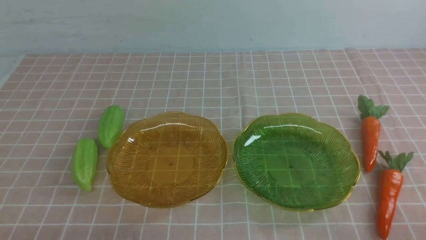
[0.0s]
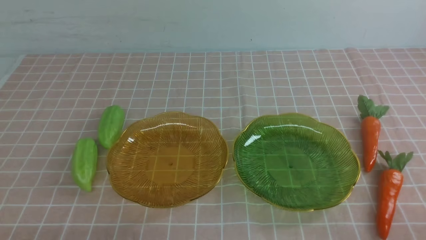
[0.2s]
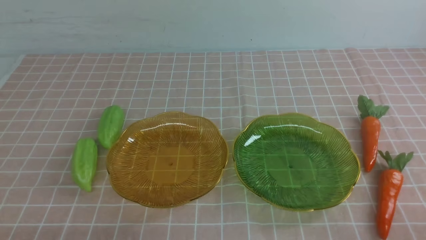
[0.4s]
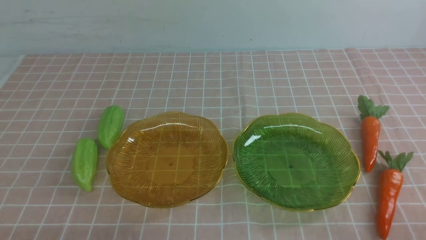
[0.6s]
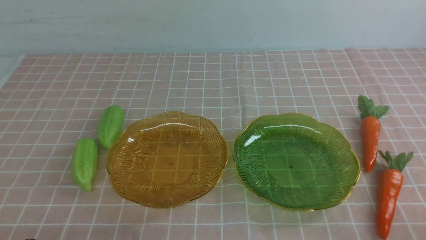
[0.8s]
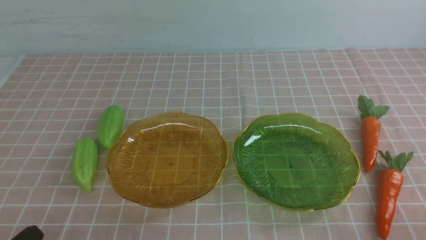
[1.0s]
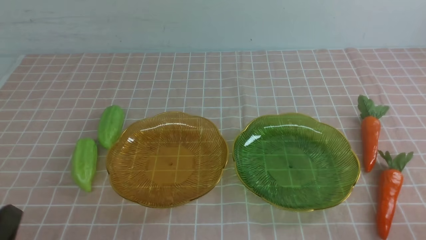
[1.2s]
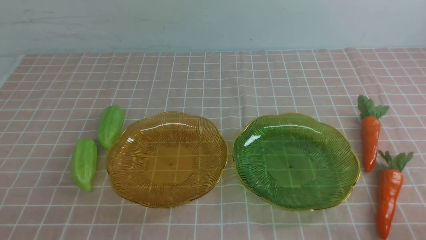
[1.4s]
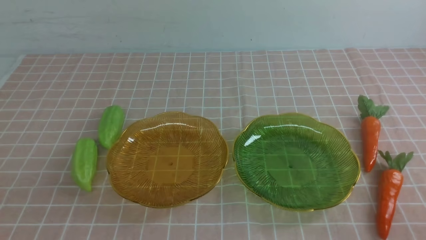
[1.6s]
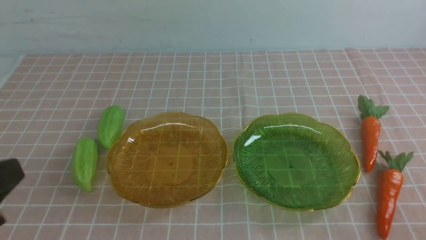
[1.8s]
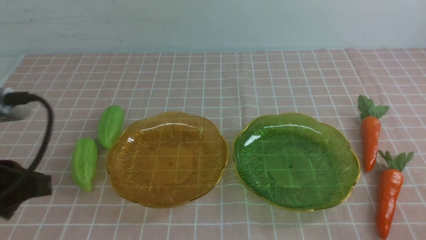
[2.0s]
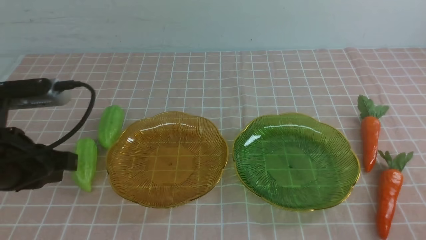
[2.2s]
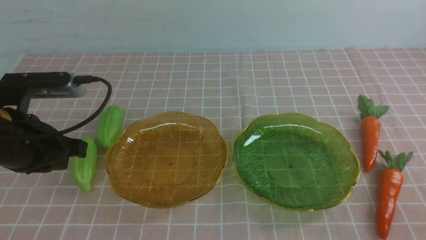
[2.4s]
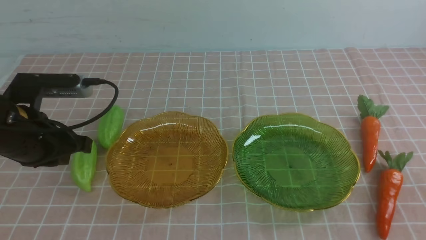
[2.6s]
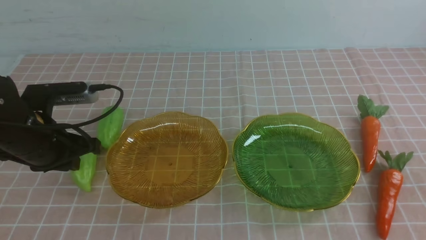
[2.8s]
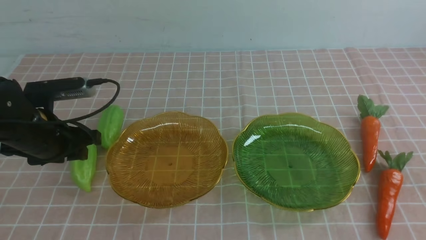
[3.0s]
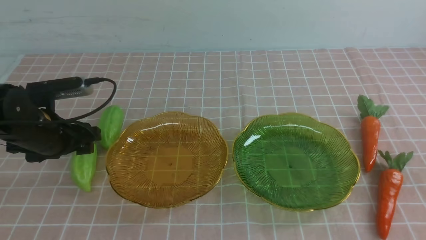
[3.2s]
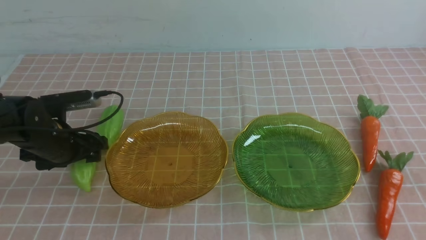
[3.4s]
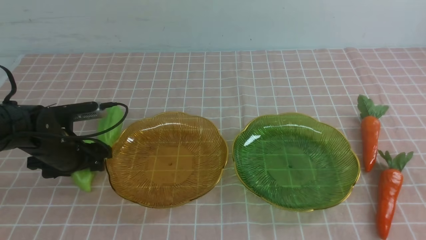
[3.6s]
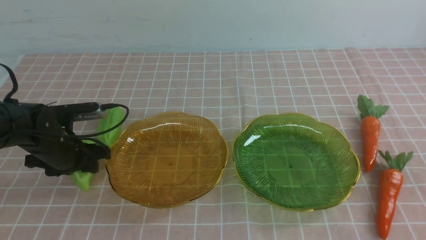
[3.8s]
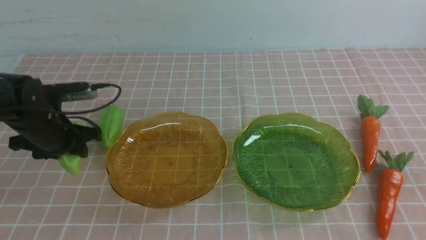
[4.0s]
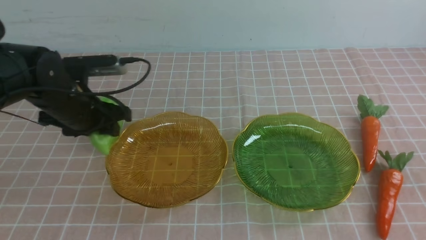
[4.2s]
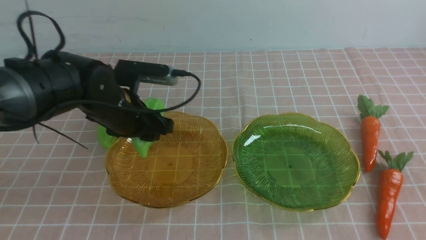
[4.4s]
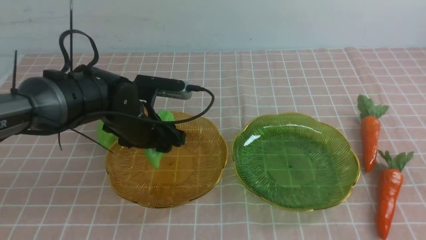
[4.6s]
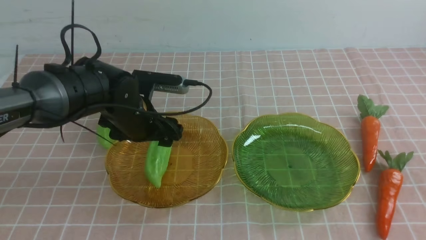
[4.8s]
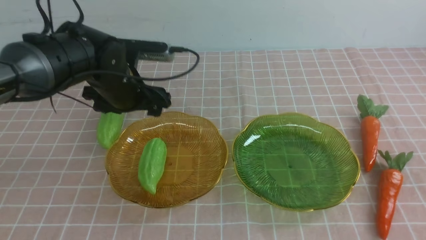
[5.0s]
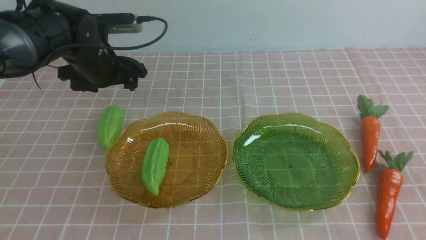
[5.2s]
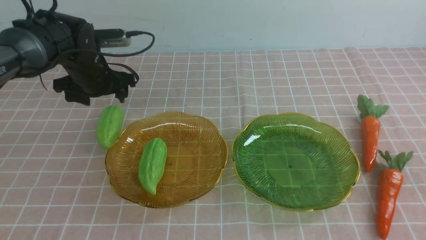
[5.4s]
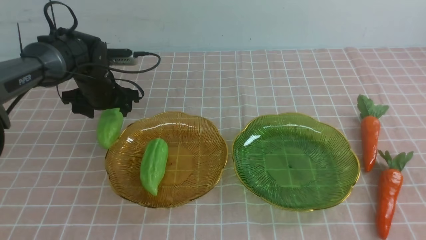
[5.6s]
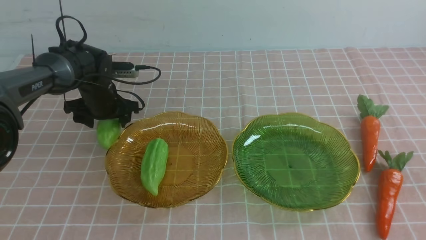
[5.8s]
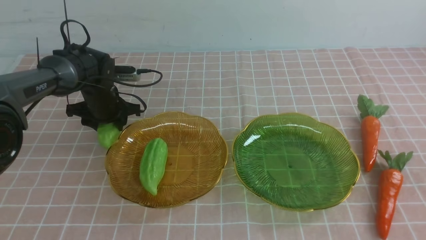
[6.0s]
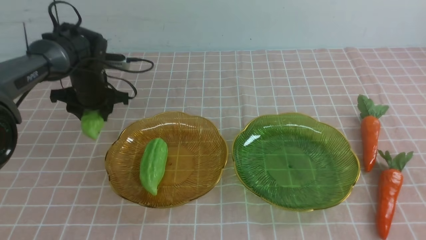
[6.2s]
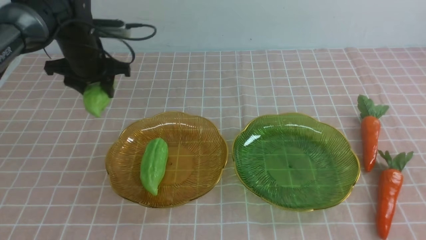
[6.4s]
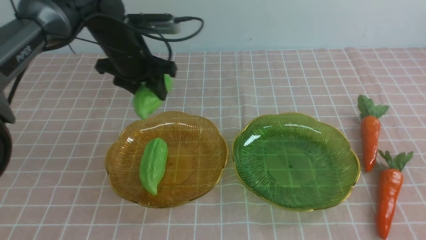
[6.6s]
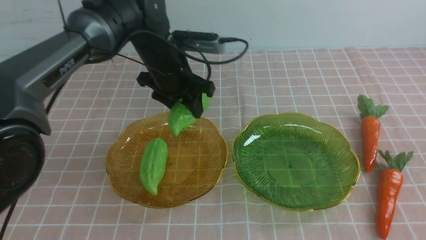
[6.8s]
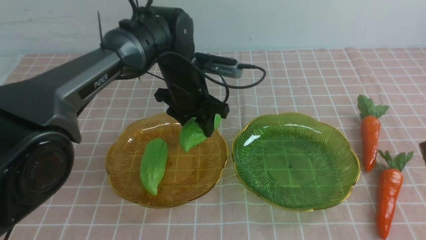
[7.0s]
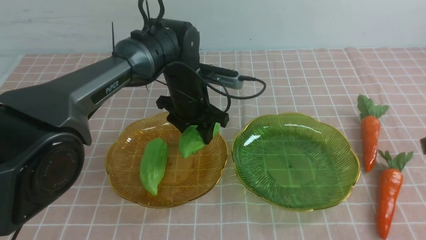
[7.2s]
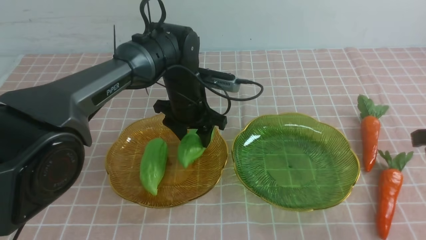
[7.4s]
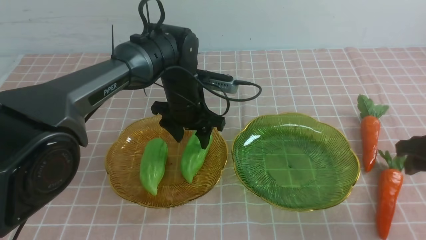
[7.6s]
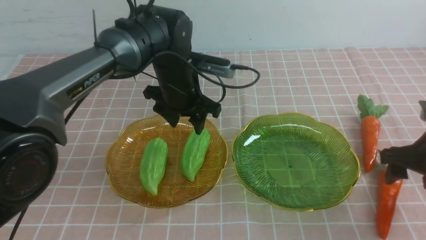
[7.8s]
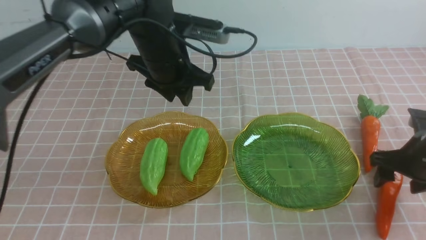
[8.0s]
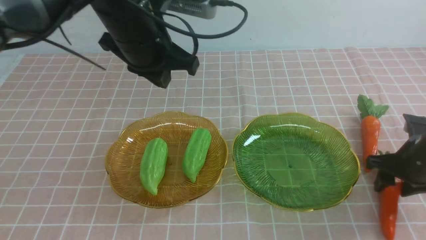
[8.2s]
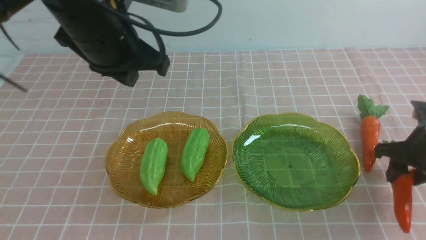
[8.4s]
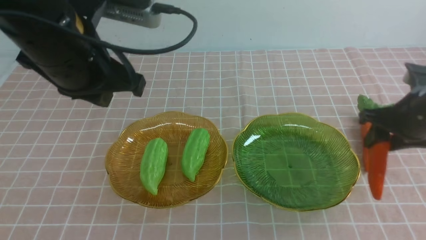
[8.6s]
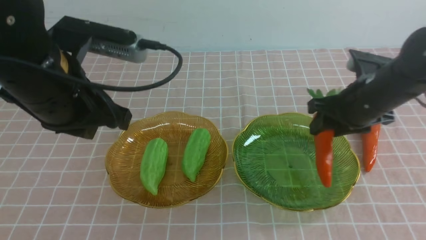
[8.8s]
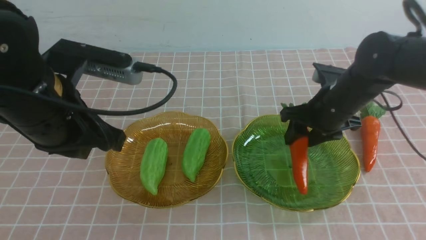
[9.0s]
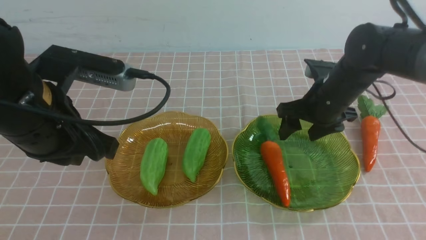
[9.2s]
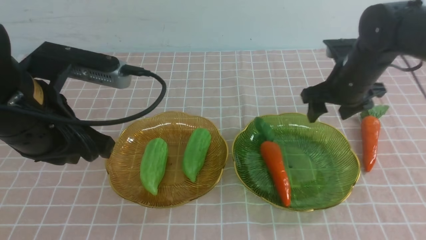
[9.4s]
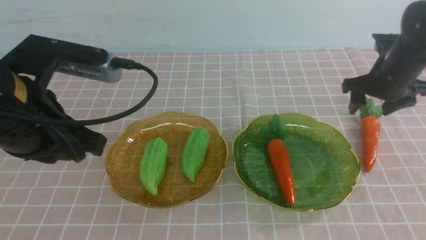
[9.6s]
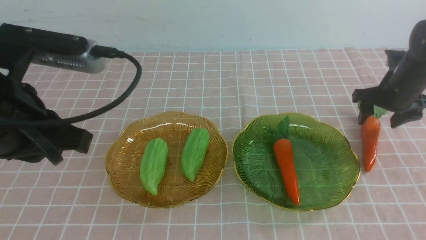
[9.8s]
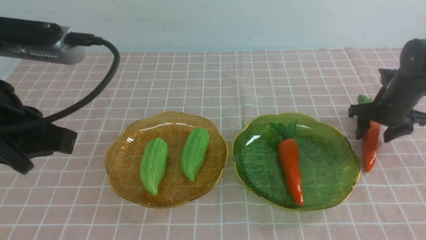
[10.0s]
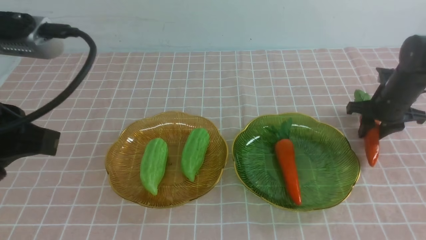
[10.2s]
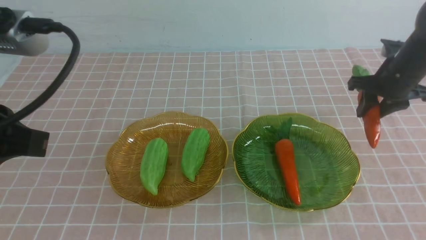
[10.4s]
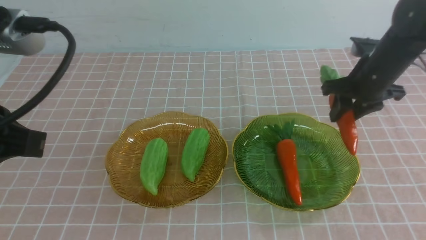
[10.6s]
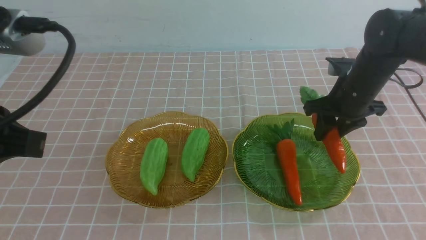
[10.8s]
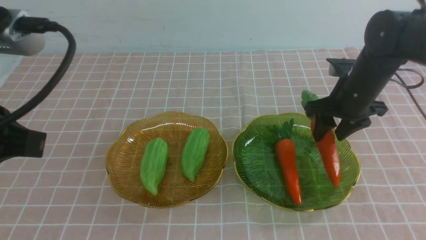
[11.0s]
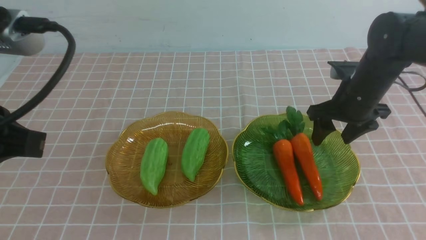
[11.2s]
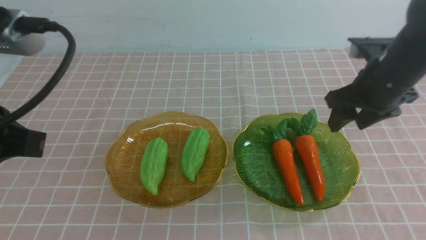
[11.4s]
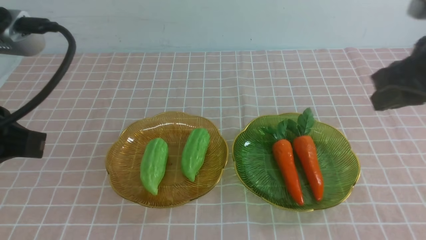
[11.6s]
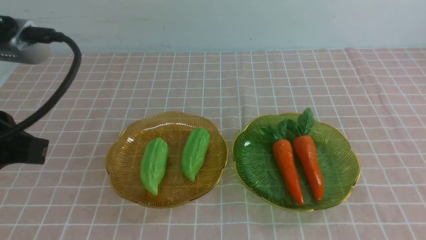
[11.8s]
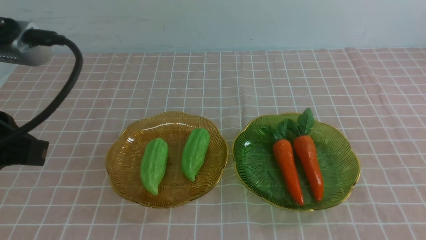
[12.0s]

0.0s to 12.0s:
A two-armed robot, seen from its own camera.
Step, 0.0s to 4.6s: use the left arm to grab a chayote and put it into the left plate.
Step, 5.0s to 7.4s: use the left arm to grab a chayote and put it into the left plate.
Step, 7.6s to 9.0s: use the right arm to grab a carrot and put it into the right plate.
Step, 9.2s to 11.2s: use the right arm to grab a carrot and put it into the right plate.
1.6s to 3.0s: The left gripper heads forward, covering about 25 cm, and opens up.
3.0s to 4.4s: The left gripper goes roughly 10 cm to the right.
4.4s to 6.0s: The left gripper shifts approximately 15 cm forward, to the left and downward.
6.0s to 7.6s: The right gripper goes about 20 cm forward and downward, and opens, while the left gripper shifts about 15 cm to the right.
7.6s to 9.0s: The left gripper is displaced backward, upward and to the left by roughly 25 cm, and closes its fingers. The right gripper is displaced to the left and forward by roughly 15 cm.
9.0s to 10.4s: The left gripper travels backward and upward by about 10 cm. Meanwhile the right gripper moves to the right and forward, roughly 15 cm.
10.4s to 12.0s: The right gripper goes roughly 35 cm backward and upward, and closes its fingers.

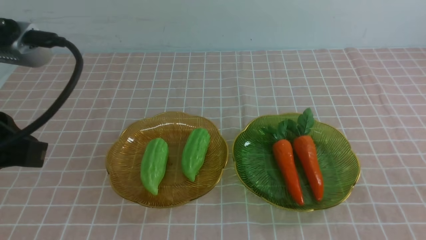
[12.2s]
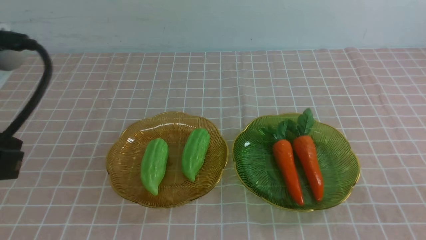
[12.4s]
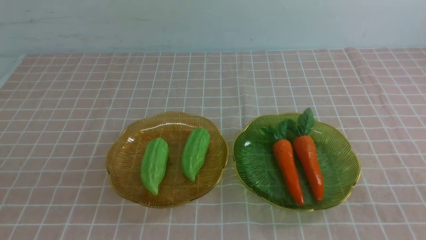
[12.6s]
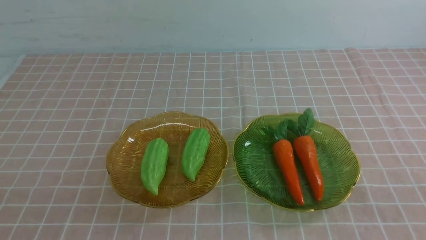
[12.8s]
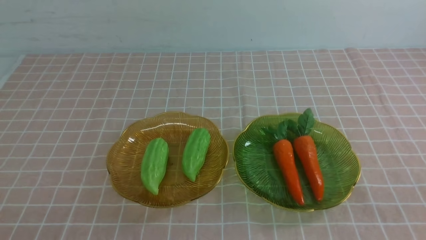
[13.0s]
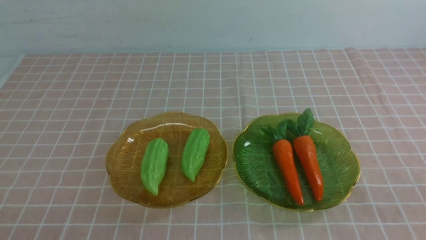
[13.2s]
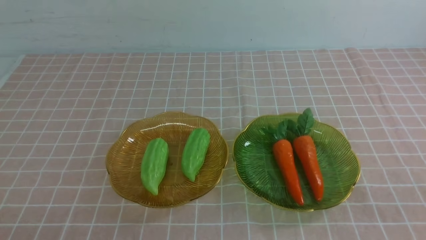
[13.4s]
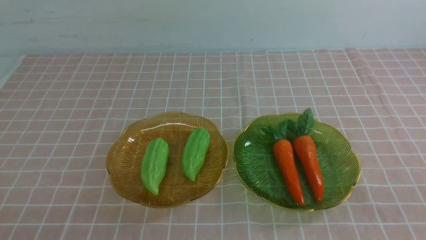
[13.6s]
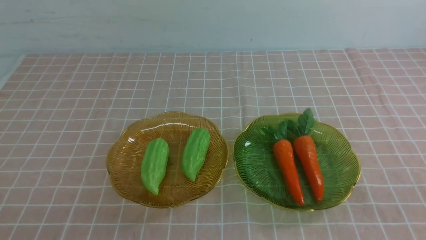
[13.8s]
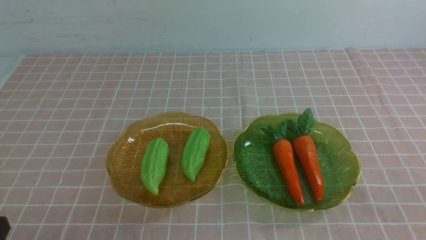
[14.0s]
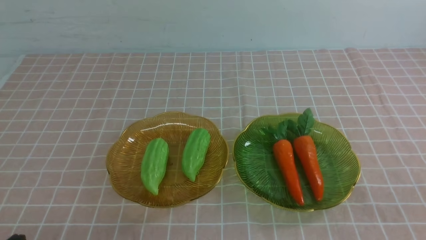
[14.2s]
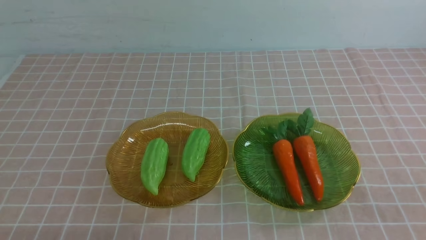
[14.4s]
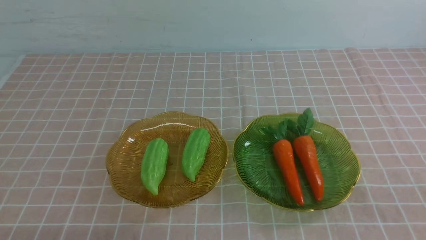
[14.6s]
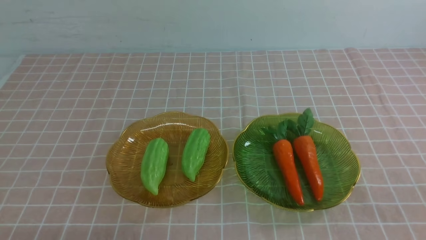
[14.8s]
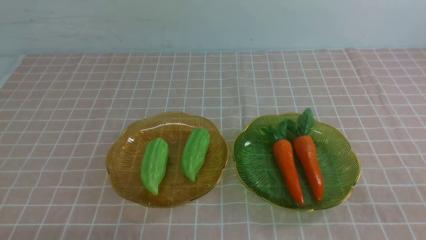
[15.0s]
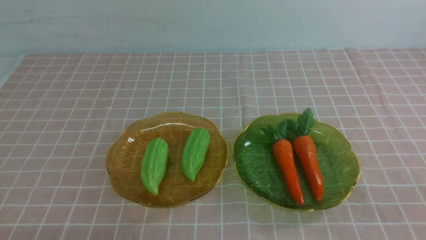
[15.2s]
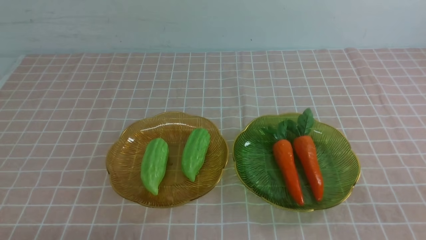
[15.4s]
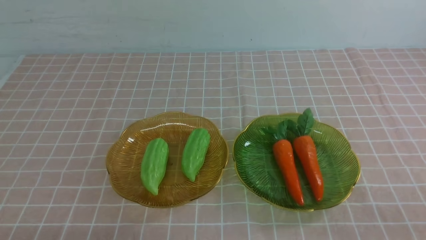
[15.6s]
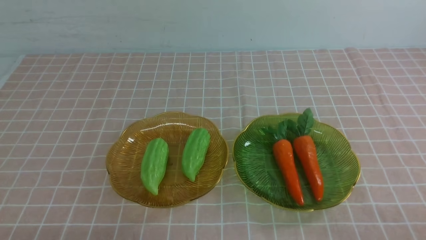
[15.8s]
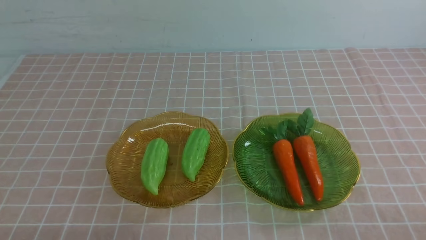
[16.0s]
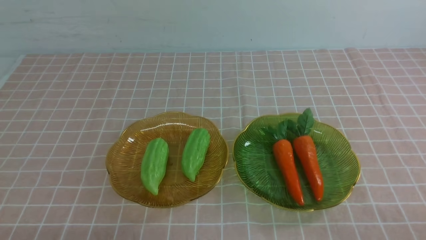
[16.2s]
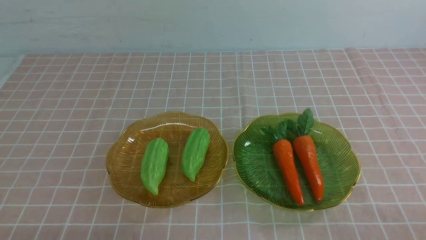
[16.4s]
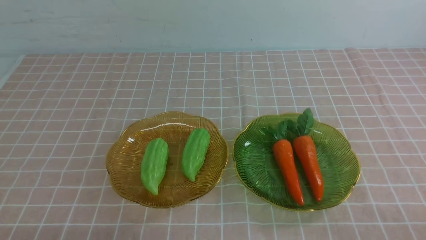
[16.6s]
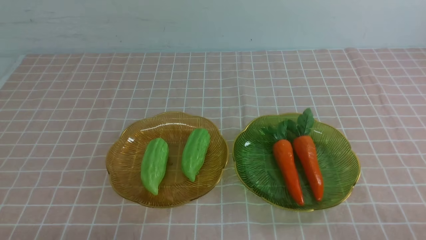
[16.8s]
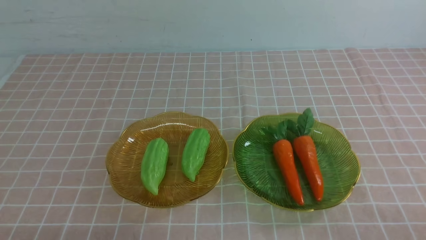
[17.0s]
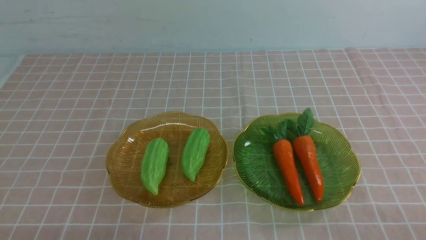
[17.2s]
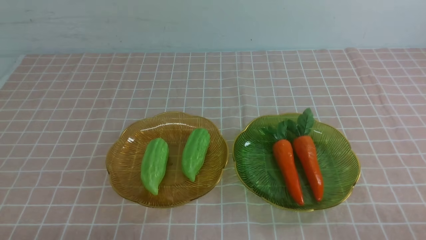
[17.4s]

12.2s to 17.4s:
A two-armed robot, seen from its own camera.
12.2s to 14.0s: The left gripper moves downward and backward, roughly 20 cm.
